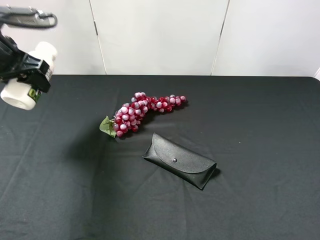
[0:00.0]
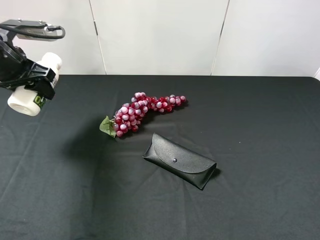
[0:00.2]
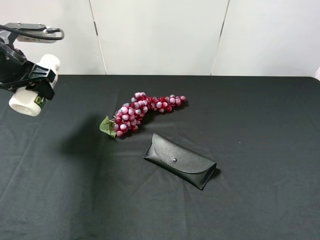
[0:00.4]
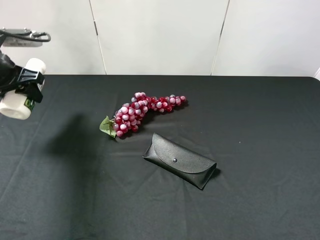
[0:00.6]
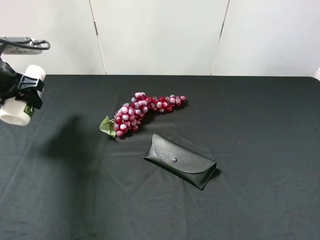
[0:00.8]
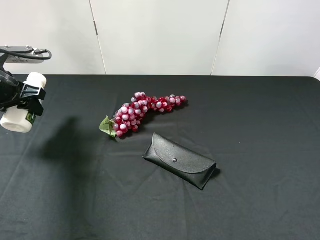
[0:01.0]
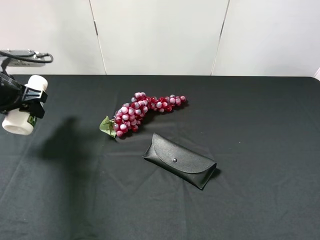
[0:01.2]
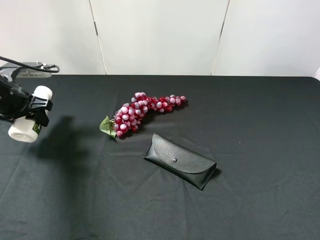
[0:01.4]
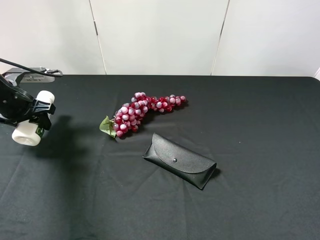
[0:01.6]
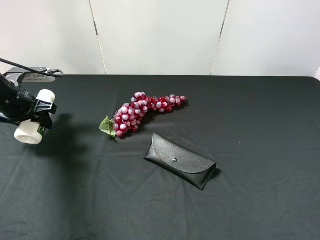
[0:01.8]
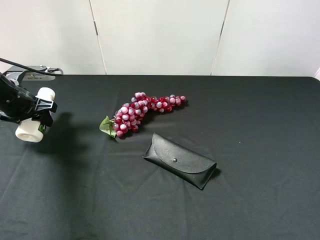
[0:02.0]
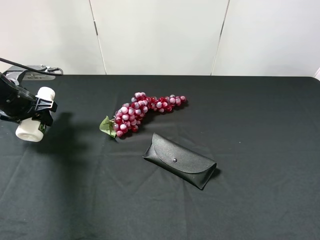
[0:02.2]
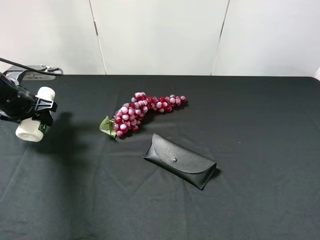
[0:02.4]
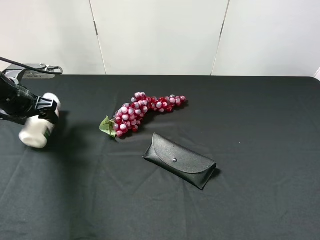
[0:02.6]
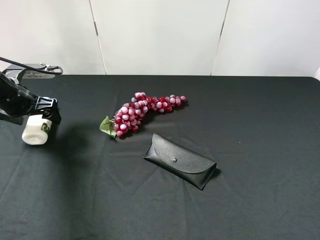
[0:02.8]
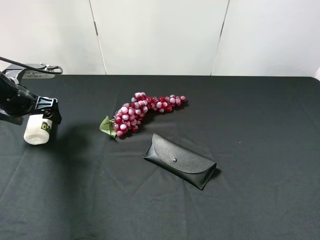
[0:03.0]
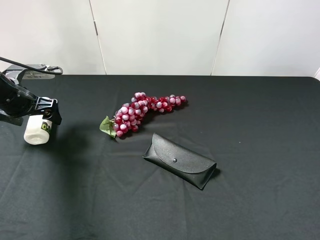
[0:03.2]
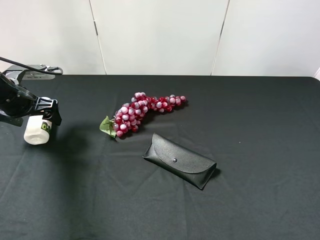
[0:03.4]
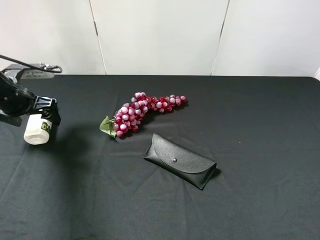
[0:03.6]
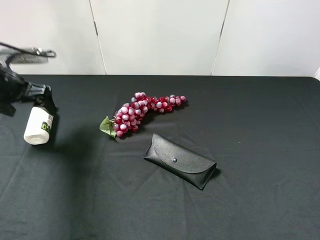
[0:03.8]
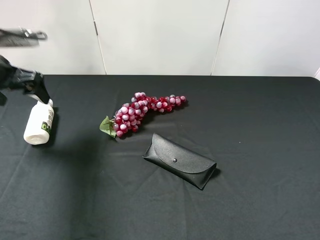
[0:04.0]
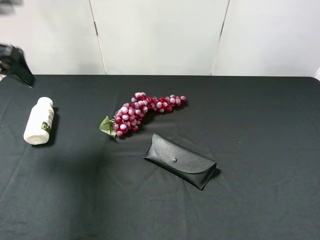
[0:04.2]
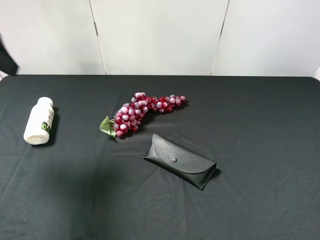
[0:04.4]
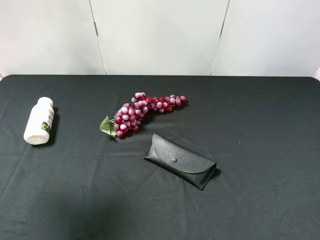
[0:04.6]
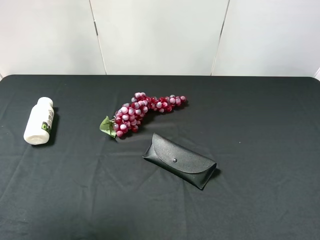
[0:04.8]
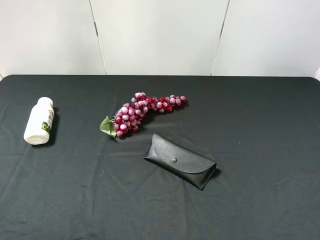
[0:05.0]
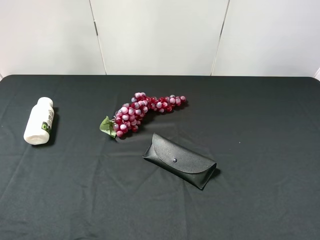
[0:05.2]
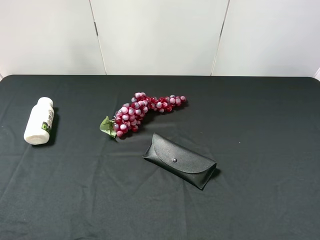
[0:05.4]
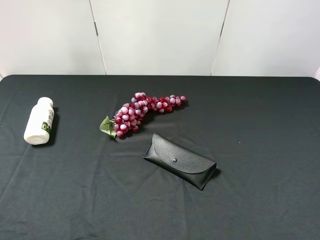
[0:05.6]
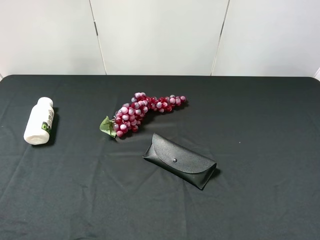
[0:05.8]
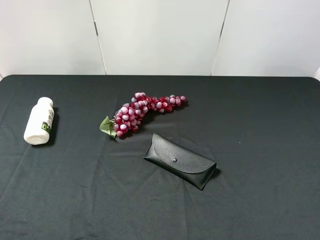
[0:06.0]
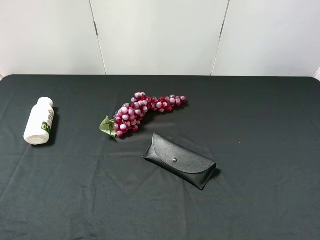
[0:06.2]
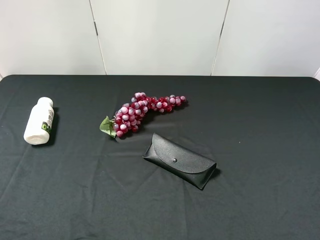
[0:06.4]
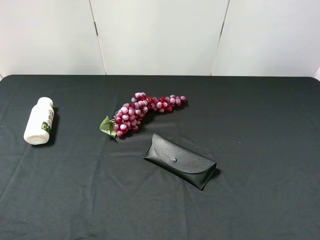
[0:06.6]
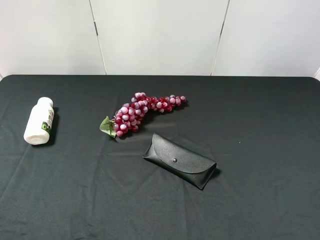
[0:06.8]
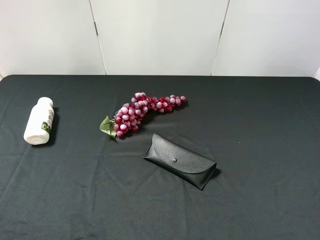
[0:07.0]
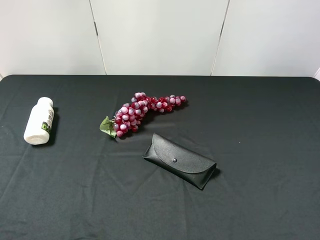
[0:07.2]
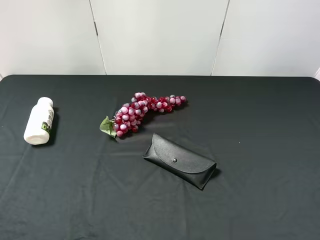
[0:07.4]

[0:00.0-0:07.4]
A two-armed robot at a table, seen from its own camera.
Task of the whole recording: use the right gripper to pick up the item and transfer it from the right gripper to the left gripper.
Step, 0.0 to 2.8 s: The left gripper places milk on the left side of the table.
0.0 to 1.4 s: The left gripper shifts roughly 10 cm downward.
1.4 to 3.0 s: The left gripper opens its fingers.
3.0 to 4.4 s: The left gripper moves upward and backward, about 20 cm.
4.4 to 6.0 s: The left gripper goes some 25 cm backward.

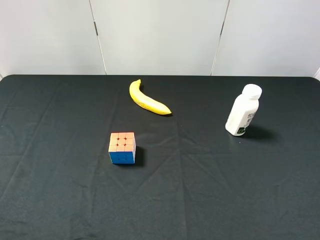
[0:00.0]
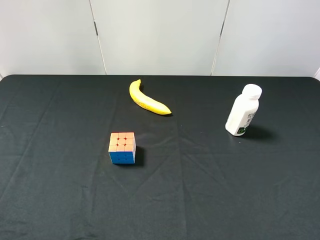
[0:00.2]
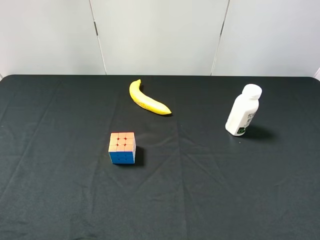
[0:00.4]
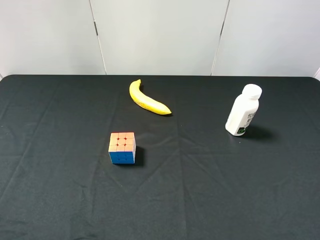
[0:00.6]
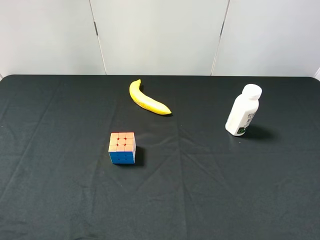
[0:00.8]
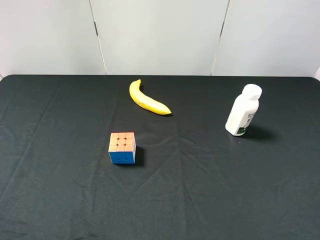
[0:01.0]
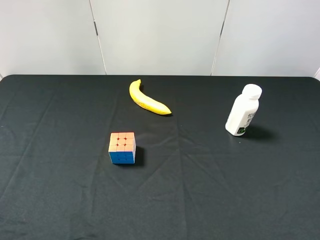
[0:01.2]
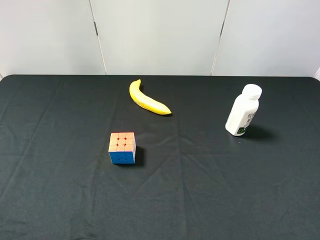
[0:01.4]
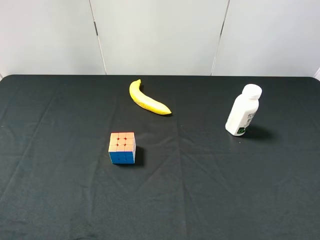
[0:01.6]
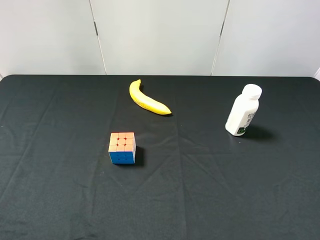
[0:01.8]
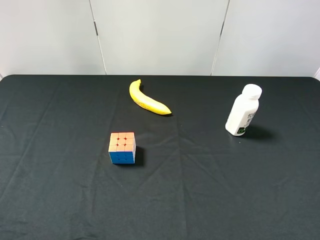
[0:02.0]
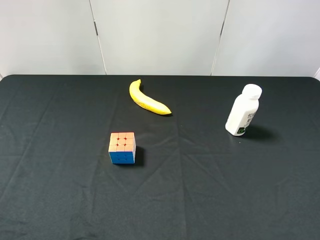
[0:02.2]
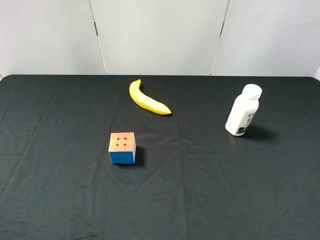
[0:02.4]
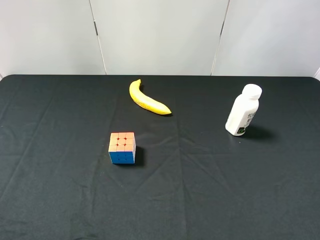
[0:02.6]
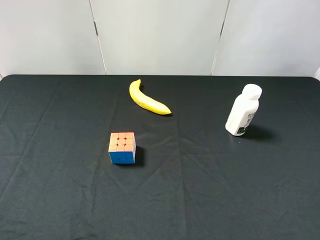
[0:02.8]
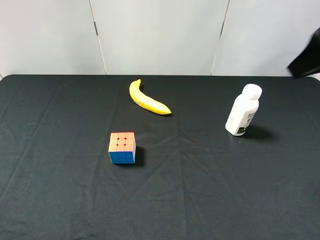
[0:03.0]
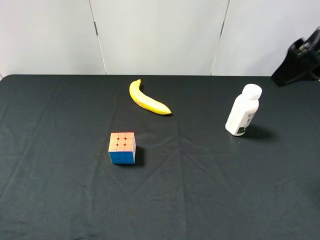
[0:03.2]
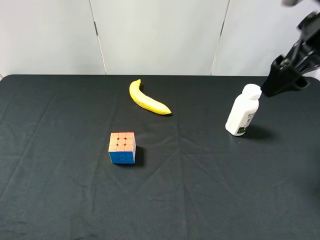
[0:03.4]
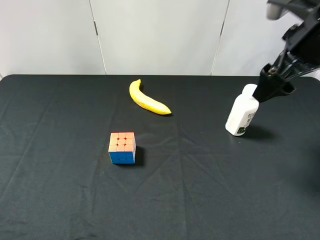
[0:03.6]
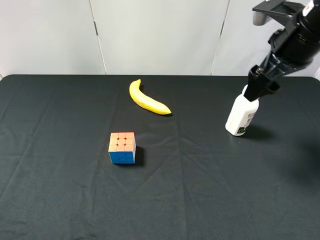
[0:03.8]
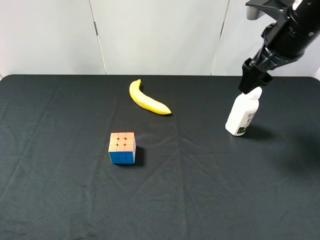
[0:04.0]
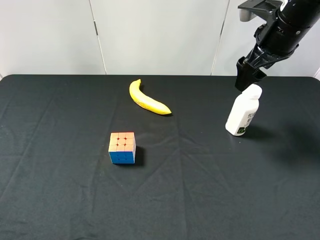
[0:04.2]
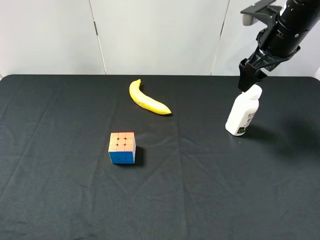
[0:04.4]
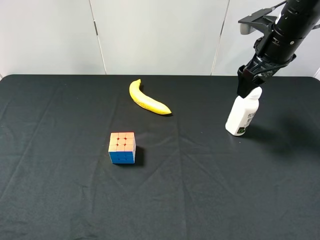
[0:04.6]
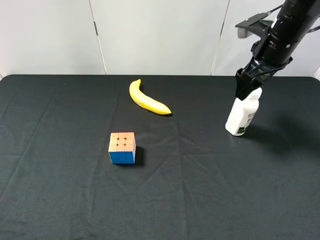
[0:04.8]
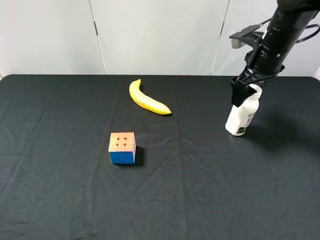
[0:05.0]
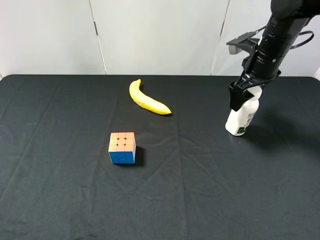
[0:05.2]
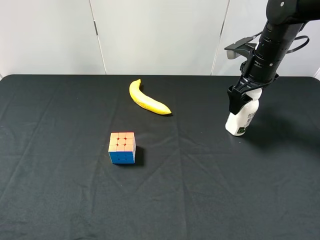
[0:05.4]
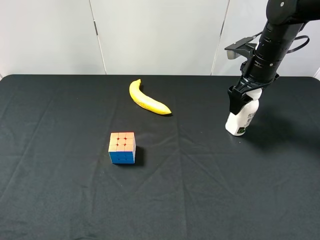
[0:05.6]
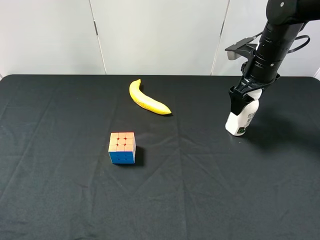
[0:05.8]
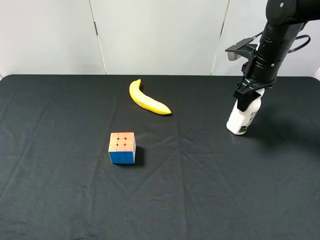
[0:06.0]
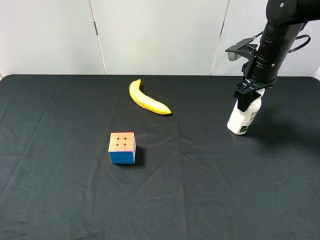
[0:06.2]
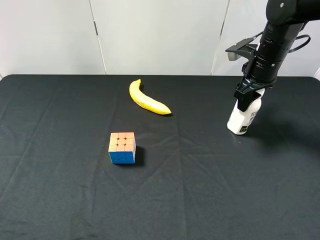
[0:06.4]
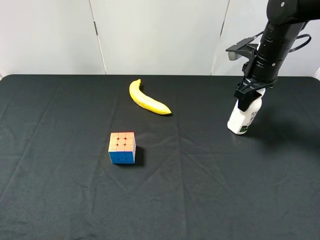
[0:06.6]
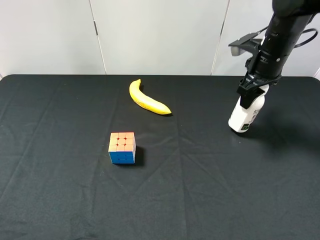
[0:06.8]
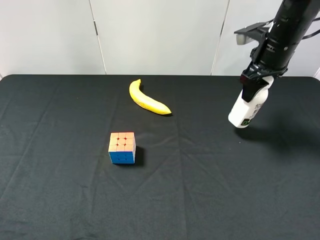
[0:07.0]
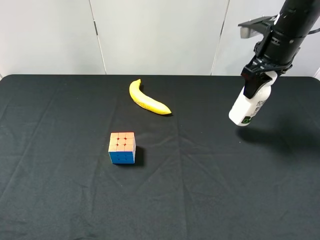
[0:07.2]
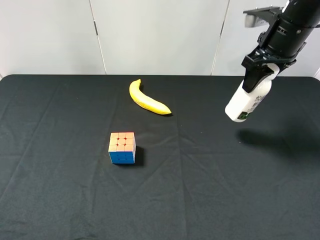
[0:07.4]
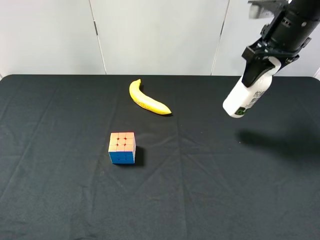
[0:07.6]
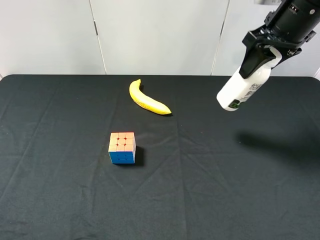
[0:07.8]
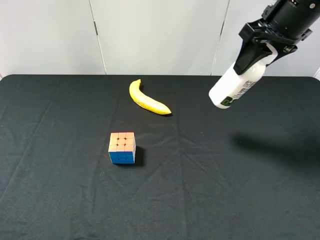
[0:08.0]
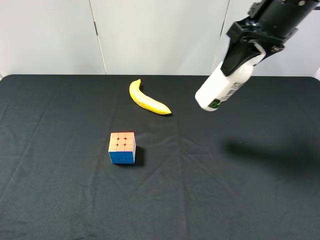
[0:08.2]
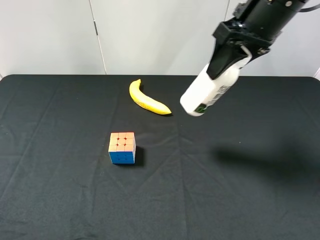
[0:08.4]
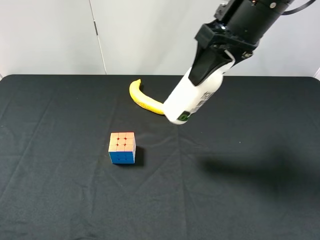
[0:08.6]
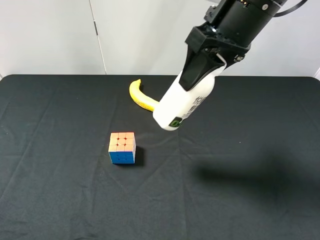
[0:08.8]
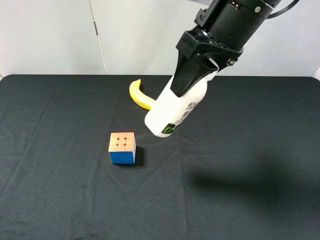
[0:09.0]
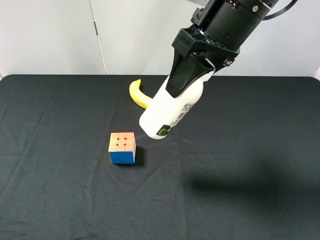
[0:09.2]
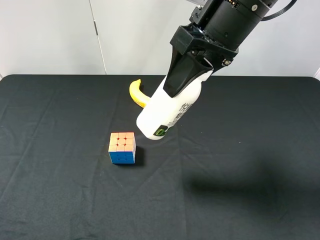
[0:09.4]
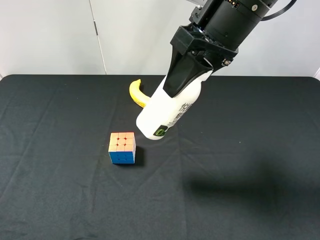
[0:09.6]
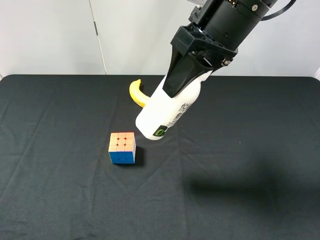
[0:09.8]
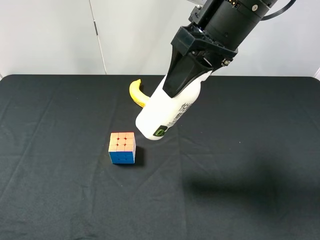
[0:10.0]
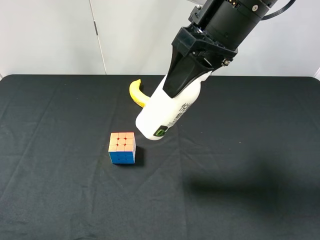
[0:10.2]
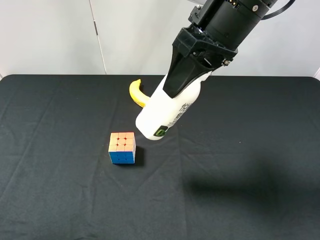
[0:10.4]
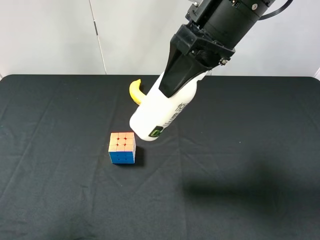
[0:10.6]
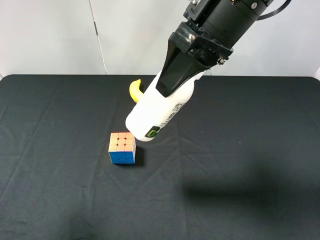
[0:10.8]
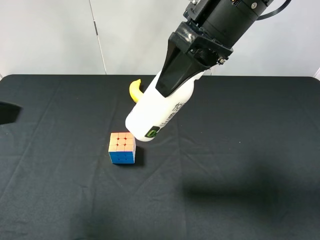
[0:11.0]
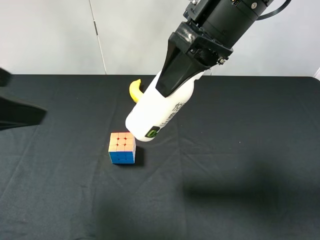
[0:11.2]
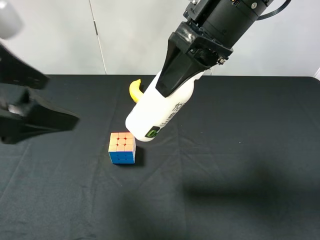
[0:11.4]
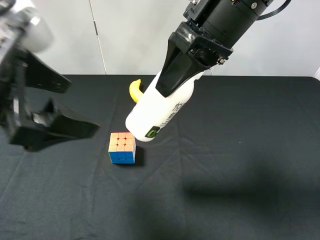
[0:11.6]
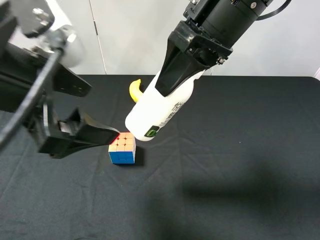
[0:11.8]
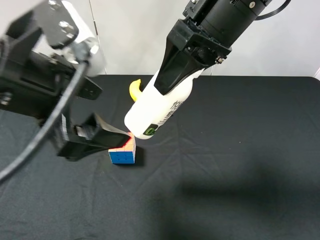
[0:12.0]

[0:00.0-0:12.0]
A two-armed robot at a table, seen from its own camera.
Task of the whole recording: use the right gripper to pick up the item and transfer it from the right gripper to the left gripper.
Step, 0.0 to 6.2 s: Use the right gripper to grab the milk on the right side of the table.
0.0 to 1.6 s: Neither gripper changes place.
1.6 to 3.0 s: The right gripper is displaced forward and upward by about 20 cm.
3.0 to 4.4 s: The right gripper heads forward and downward, covering about 15 cm.
4.4 to 6.0 s: The right gripper moves downward, some 5 cm, and closes.
6.0 to 7.6 s: The right gripper shifts about 10 cm upward.
7.6 to 9.0 s: The right gripper heads to the left and backward, covering approximately 15 cm.
9.0 to 10.4 s: The left gripper is displaced upward and forward by about 10 cm.
10.4 to 12.0 s: The left gripper goes approximately 20 cm to the right and forward.

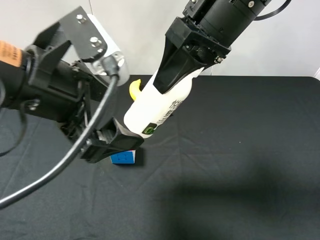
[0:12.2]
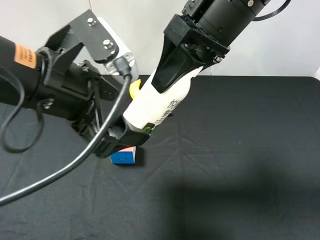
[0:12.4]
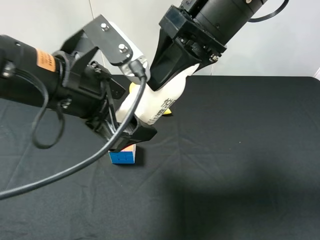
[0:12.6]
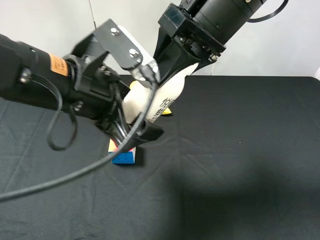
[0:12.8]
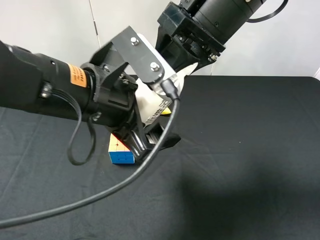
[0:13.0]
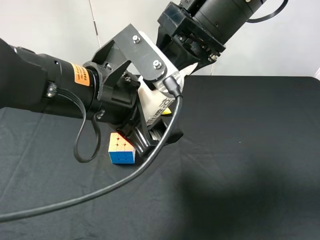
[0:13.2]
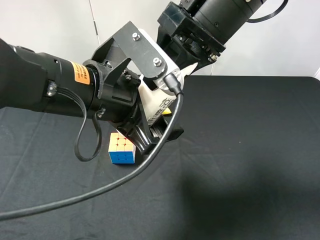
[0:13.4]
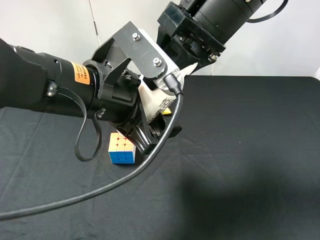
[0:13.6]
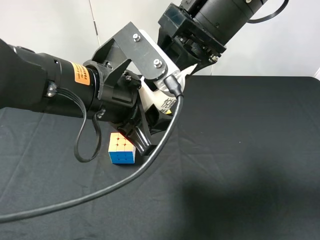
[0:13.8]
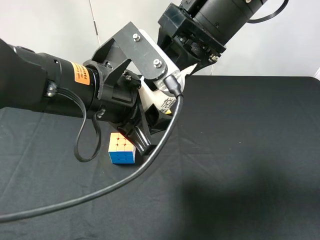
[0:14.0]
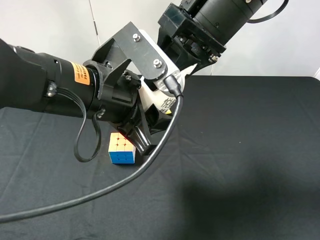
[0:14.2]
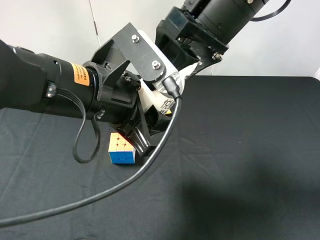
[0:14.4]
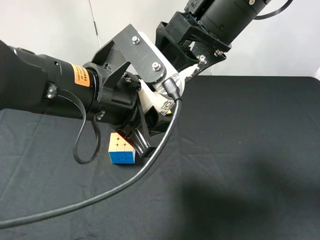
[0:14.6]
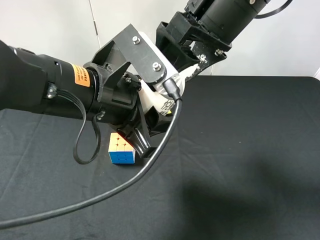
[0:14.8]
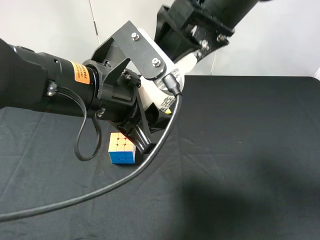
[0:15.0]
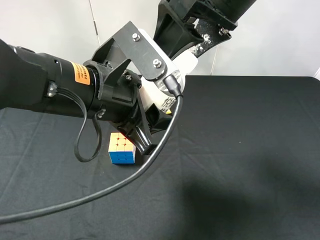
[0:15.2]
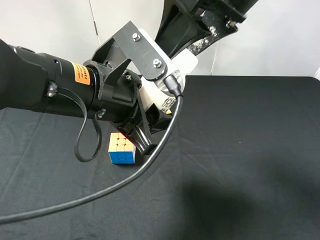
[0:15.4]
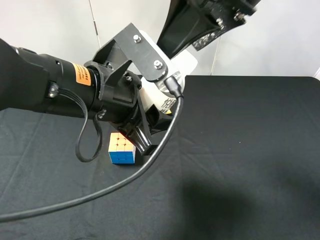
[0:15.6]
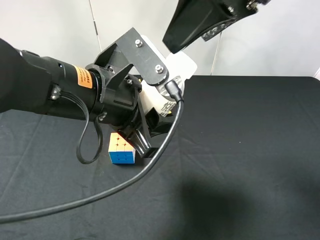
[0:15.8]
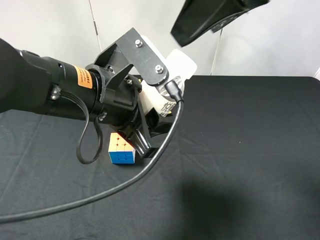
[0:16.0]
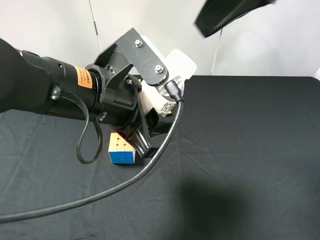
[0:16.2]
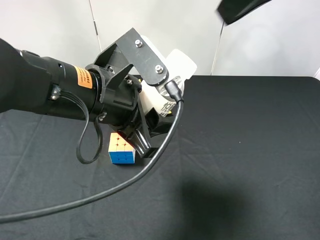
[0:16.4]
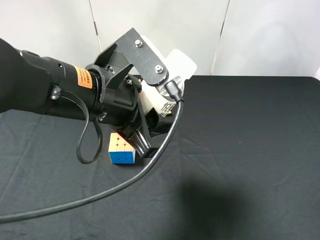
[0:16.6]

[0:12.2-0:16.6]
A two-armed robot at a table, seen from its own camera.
Task of the whole recording: use the right gripper to pick up the item and transfer it from the right gripper to the left gripper.
Step, 12.2 to 14.6 s: Pass the milk to the left gripper.
12.2 to 13.6 s: The left gripper changes place by approximately 5 cm, and closes up.
13.6 to 15.2 s: The right gripper opens up; the left gripper closes its fingers.
15.2 to 16.6 s: The right gripper travels to the right, upward and backward by some 15 cm.
